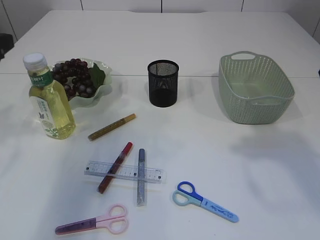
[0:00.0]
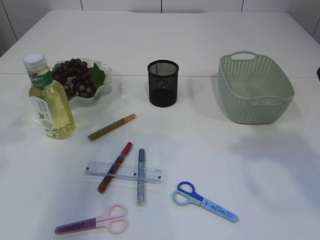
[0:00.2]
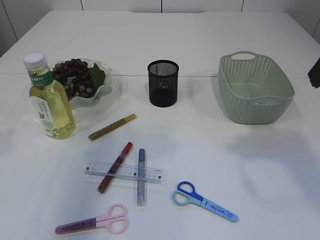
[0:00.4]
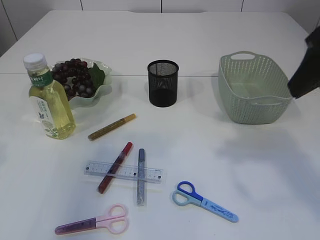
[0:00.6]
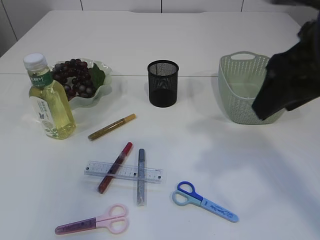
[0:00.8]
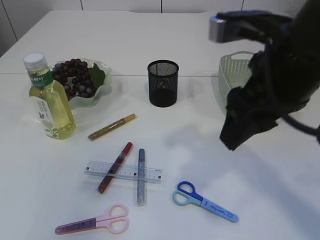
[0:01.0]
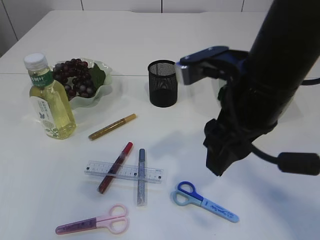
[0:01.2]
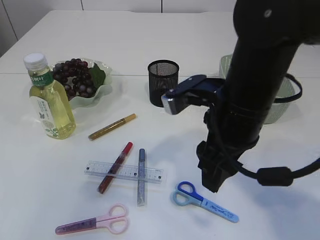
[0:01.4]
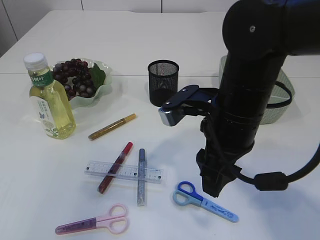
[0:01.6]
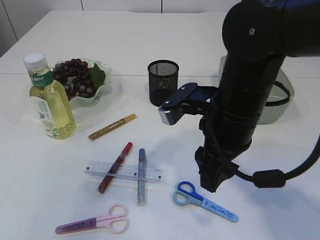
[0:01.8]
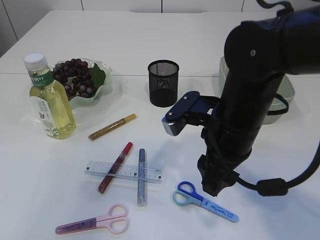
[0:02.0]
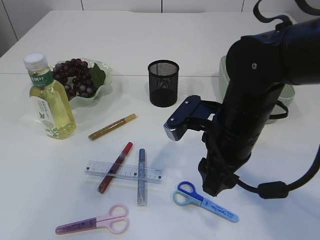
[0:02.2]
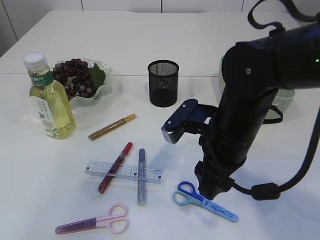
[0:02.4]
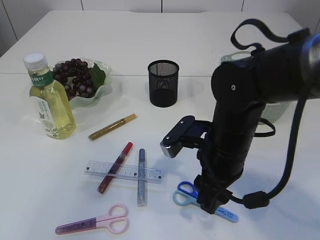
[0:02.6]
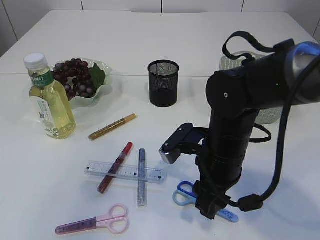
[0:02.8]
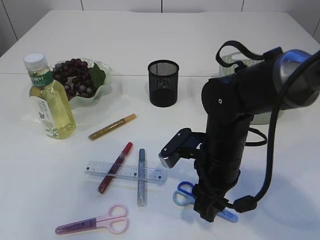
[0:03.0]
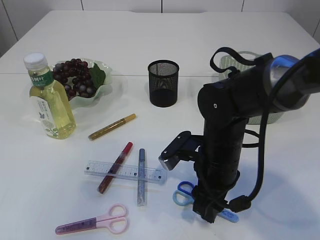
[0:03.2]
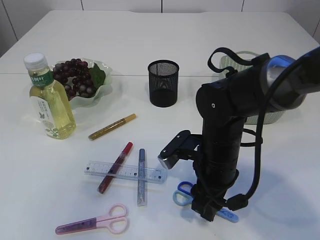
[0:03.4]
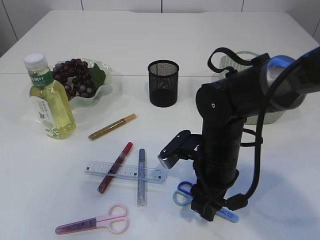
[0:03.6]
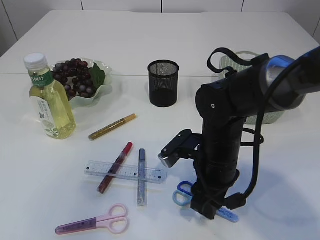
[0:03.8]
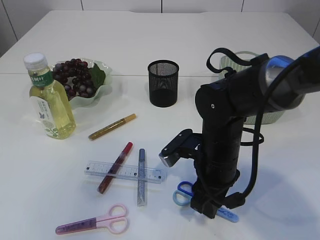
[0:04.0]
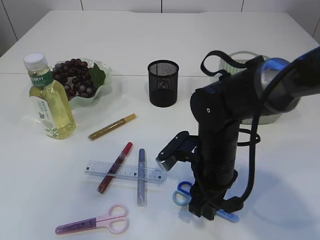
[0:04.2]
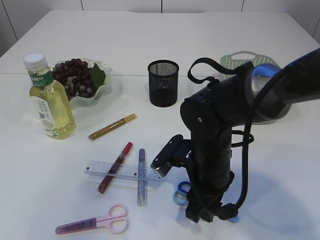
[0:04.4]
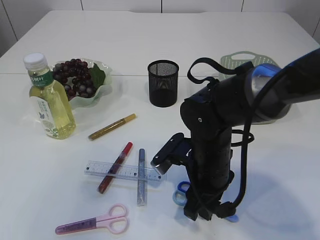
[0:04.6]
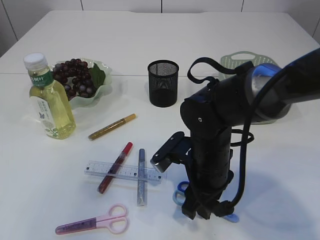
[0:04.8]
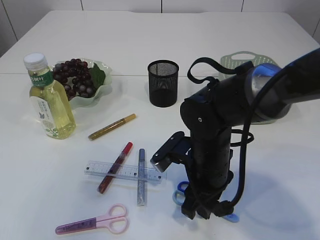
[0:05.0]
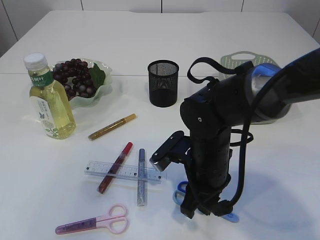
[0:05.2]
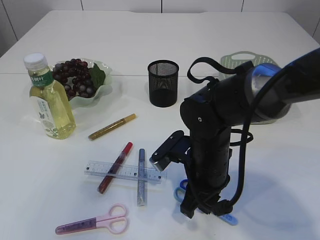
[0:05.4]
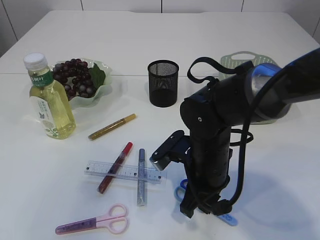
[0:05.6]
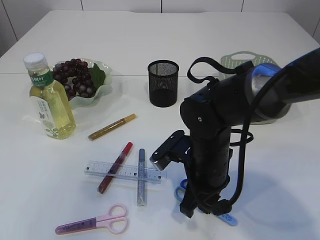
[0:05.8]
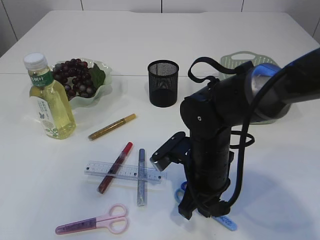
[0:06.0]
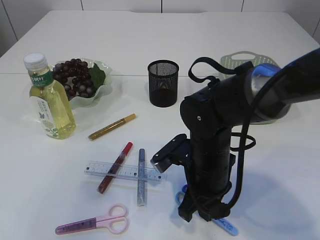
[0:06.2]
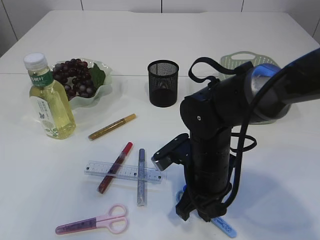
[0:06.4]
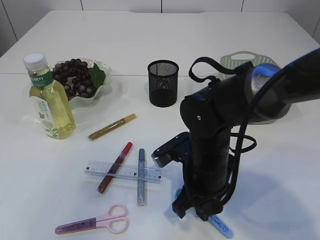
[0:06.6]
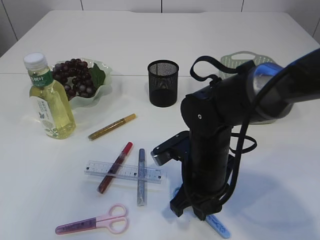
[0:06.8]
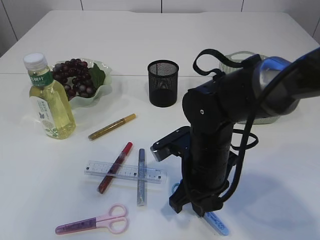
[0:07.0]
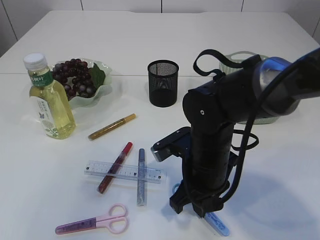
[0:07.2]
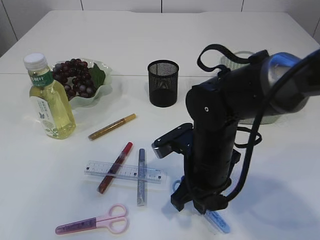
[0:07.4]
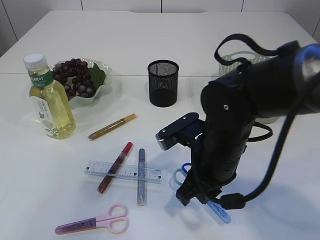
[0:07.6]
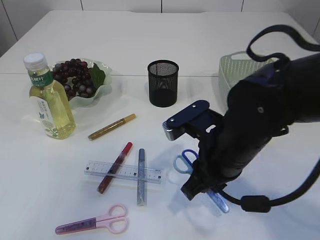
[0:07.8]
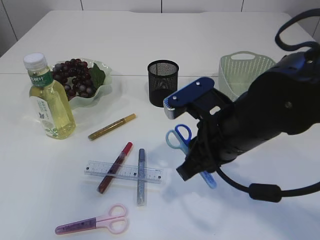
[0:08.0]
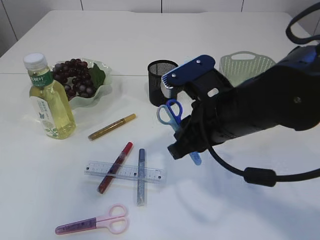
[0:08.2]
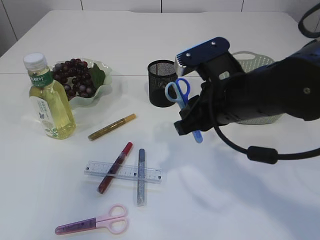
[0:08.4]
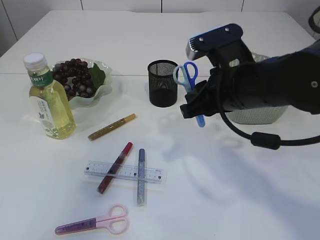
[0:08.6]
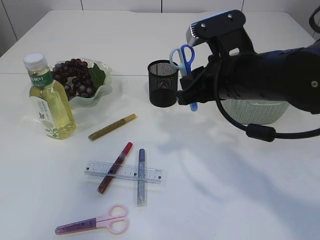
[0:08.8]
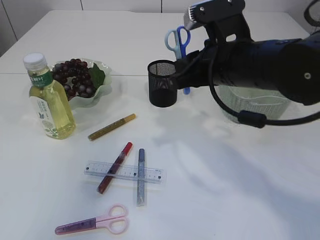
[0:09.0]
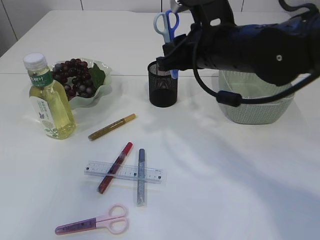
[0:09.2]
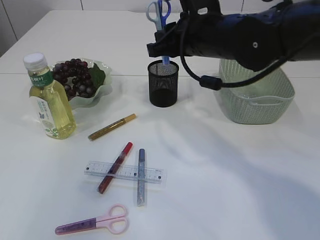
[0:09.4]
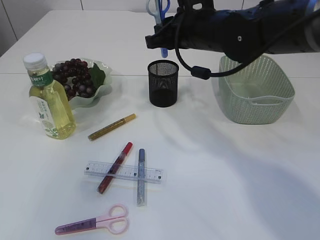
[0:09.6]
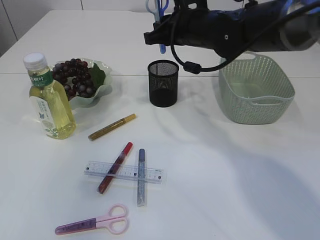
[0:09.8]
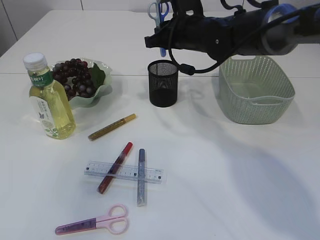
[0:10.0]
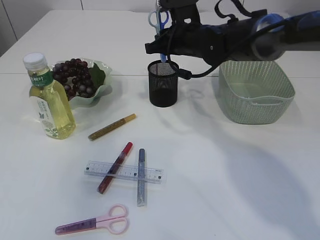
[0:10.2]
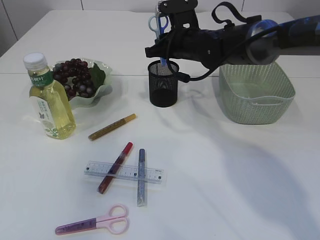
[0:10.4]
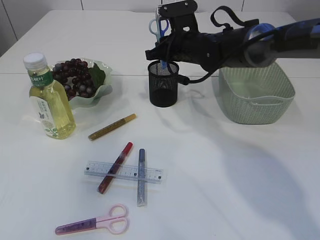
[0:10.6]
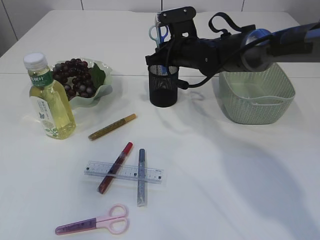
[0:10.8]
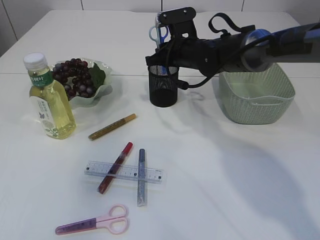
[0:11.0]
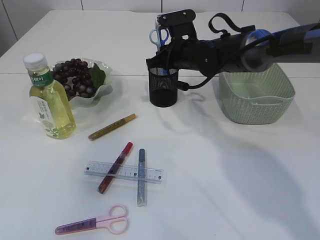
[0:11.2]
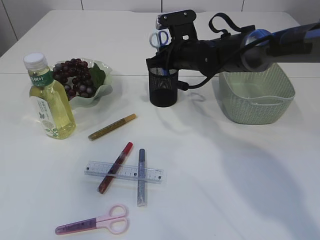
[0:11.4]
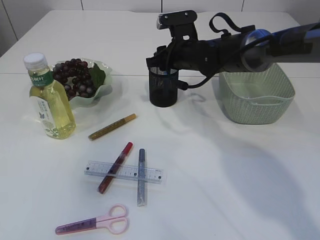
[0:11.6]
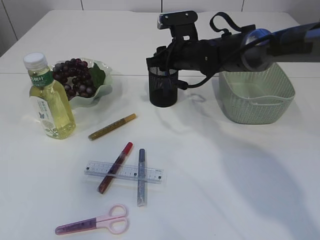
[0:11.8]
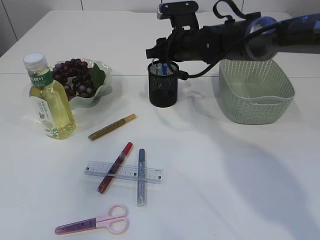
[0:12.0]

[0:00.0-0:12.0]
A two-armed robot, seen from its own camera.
Step, 0:00.0 to 0:08.0: pick up the blue scissors.
0:00.0 to 0:01.6: The right gripper goes about 20 cm to the left and downward, while the left gripper is displaced backward and upward by some 15 cm.
0:01.6 to 0:03.0: The right gripper heads downward, covering roughly 10 cm.
0:03.0 to 0:04.4: There are only small adjustments of the grippers.
0:04.4 to 0:06.0: The right gripper closes.
0:06.0 to 0:07.6: The grippers stay close to where they were, moving slightly.
0:07.6 to 0:09.0: The right gripper moves upward, about 10 cm.
0:09.0 to 0:10.4: The right gripper moves forward, approximately 15 cm.
0:10.4 to 0:12.0: The right gripper opens its fingers.

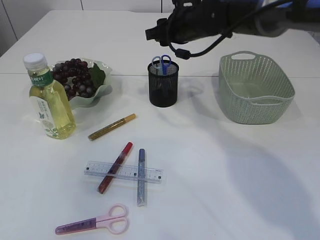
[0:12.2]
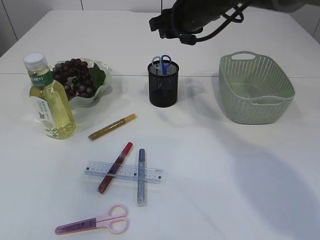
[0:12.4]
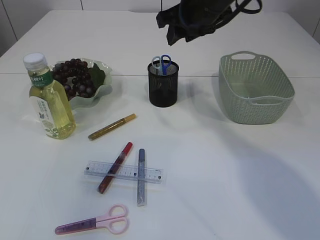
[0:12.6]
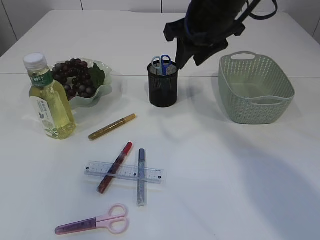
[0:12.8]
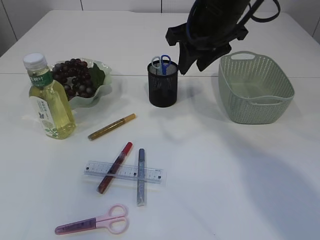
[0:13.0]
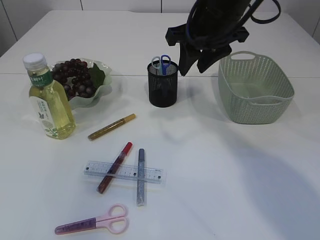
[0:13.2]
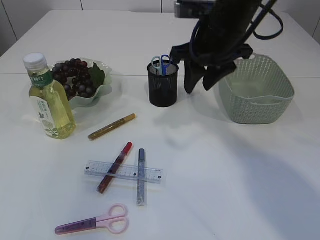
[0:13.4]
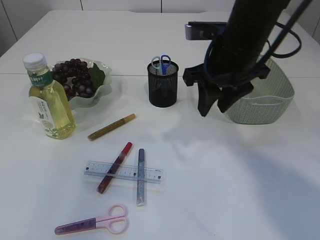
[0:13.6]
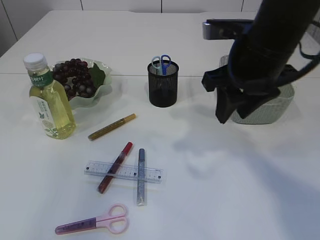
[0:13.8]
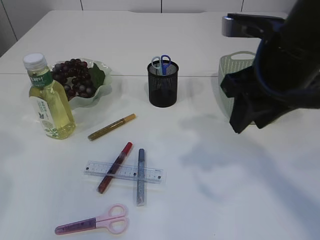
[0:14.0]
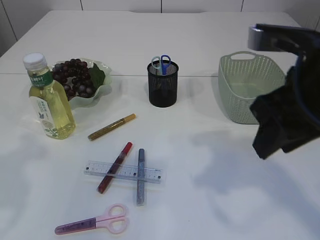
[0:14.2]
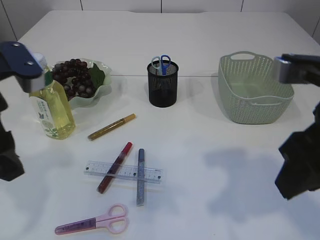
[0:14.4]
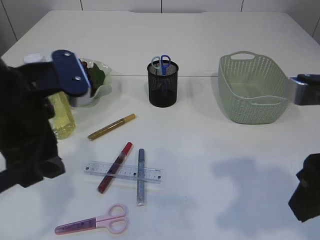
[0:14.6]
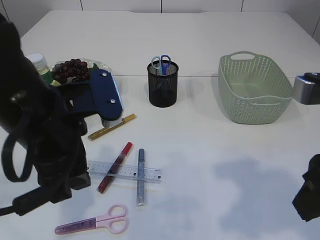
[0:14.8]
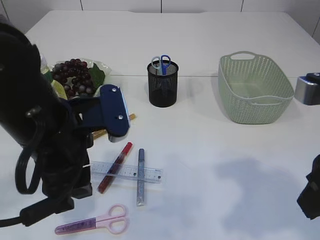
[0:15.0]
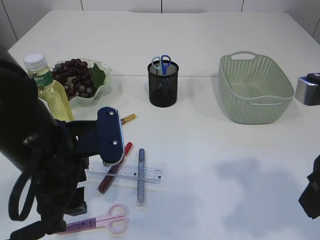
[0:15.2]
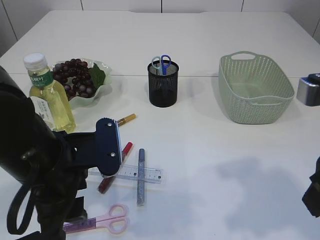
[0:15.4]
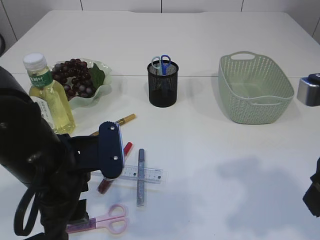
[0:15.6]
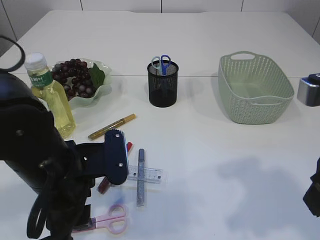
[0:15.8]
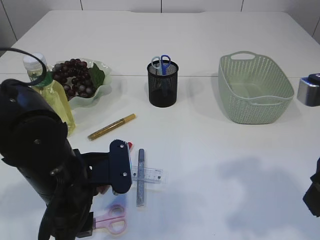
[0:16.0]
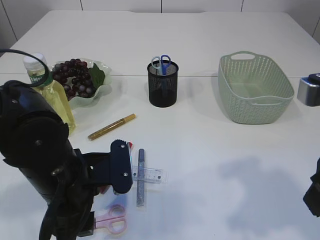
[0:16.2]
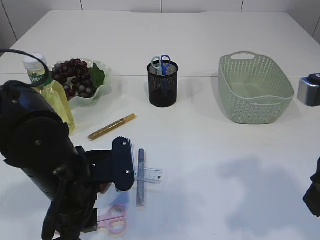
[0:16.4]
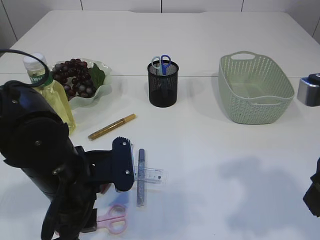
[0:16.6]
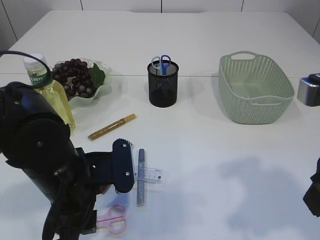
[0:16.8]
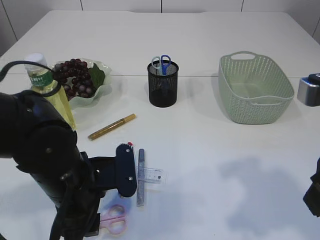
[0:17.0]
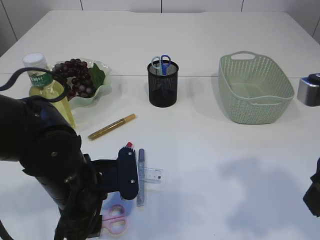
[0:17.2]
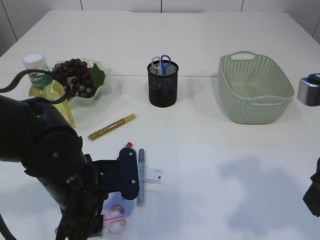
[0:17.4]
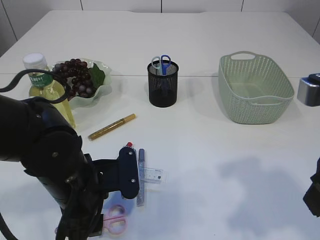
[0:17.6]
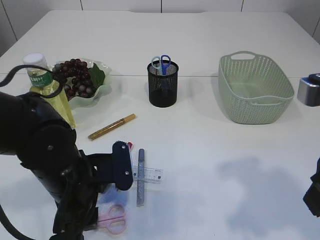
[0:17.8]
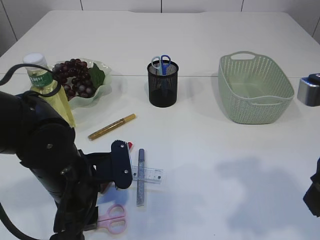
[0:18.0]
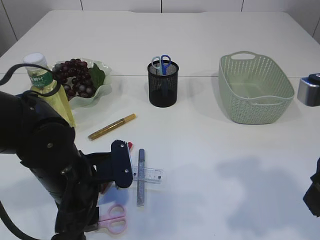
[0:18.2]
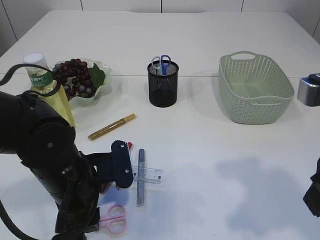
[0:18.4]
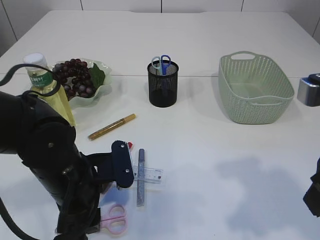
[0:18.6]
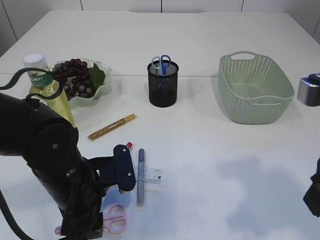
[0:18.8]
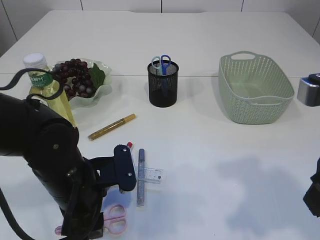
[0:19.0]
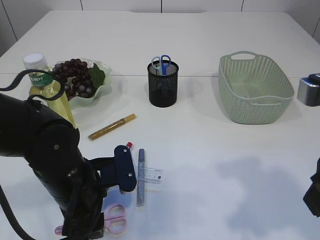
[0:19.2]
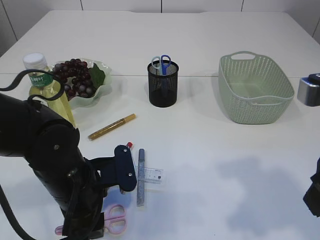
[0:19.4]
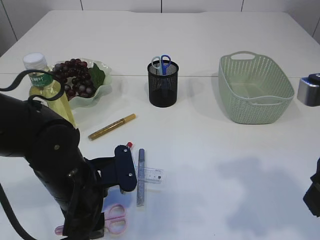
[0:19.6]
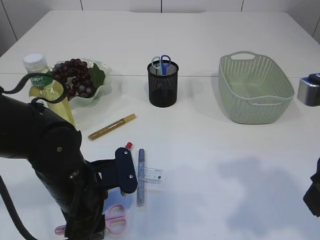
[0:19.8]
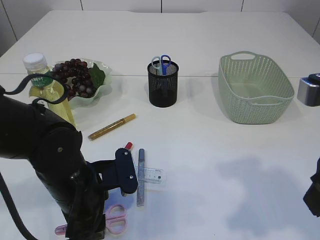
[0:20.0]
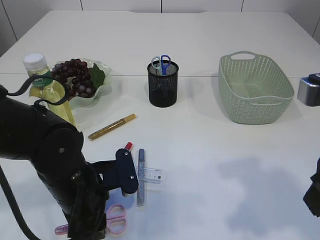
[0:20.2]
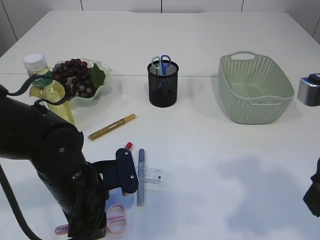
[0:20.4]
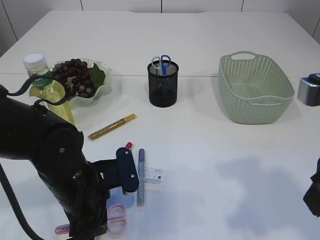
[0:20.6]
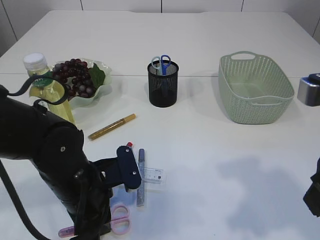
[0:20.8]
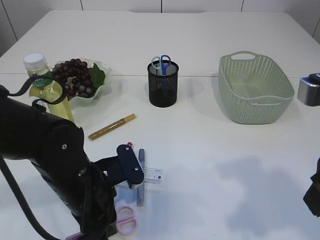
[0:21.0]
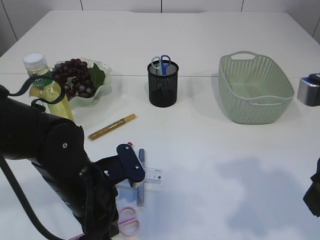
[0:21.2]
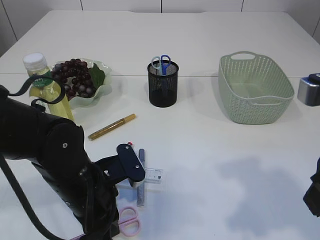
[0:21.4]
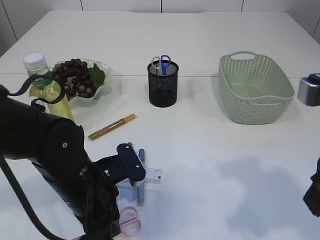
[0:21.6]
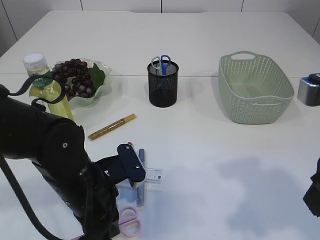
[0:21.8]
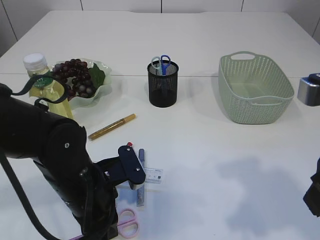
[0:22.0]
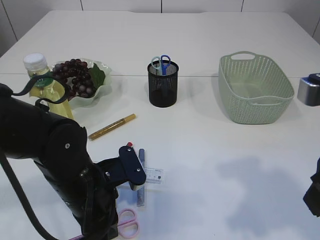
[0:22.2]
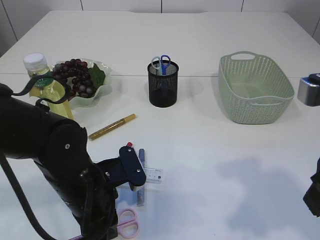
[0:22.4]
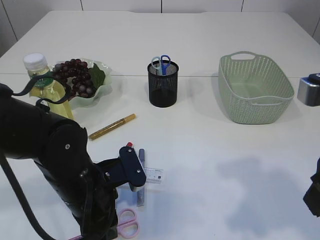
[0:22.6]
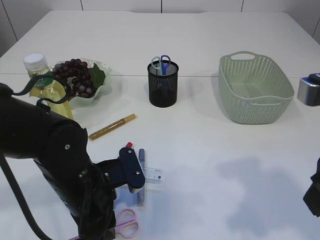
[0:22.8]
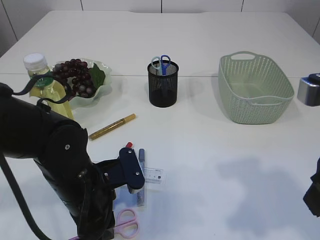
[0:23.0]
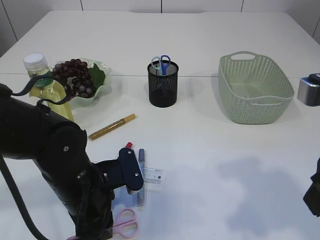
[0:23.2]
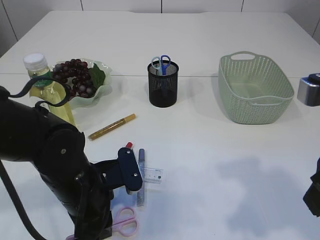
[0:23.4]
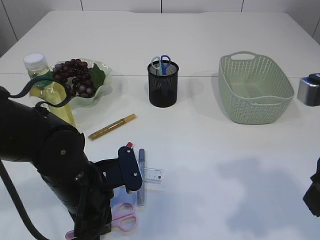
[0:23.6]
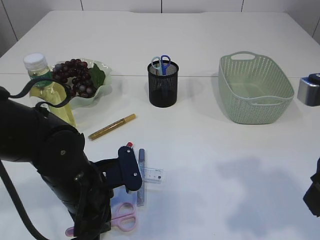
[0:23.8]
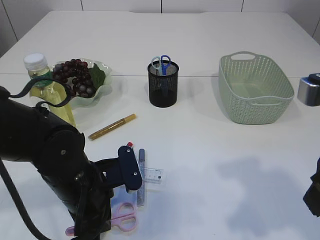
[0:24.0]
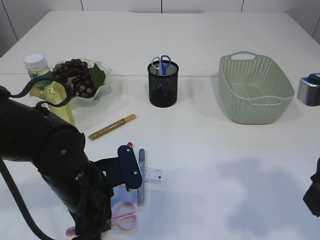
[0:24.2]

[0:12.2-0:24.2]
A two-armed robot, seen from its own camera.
0:12.2 to 0:13.8: The right gripper moves backward, approximately 15 cm.
0:13.8 to 0:15.2: The left gripper moves to the right and downward, roughly 20 cm; the right gripper goes roughly 15 cm backward.
0:15.2 to 0:16.6: The left gripper goes about 5 cm downward.
0:16.6 to 0:19.8: The grippers stay close to where they were, moving slightly.
0:19.8 to 0:21.2: The left gripper closes up.
0:21.2 to 0:22.6: Both grippers stay put.
0:22.6 to 0:24.2: The grippers stay close to where they were, moving slightly.
